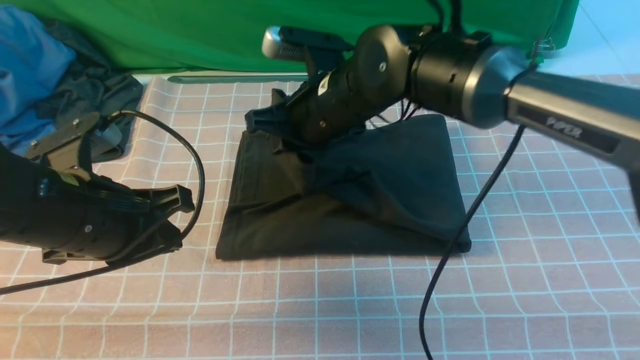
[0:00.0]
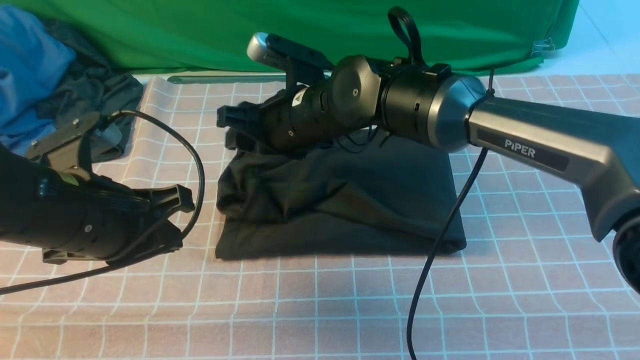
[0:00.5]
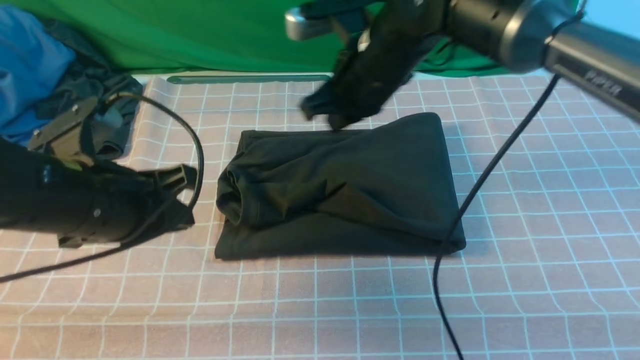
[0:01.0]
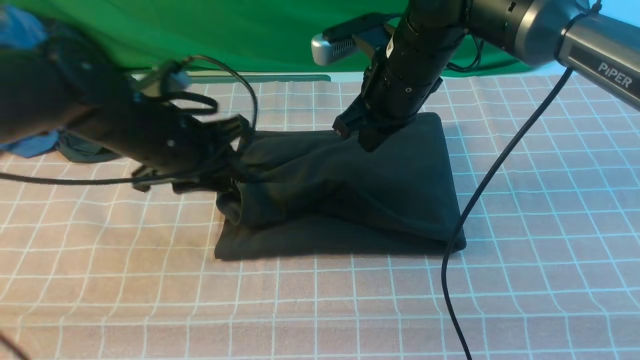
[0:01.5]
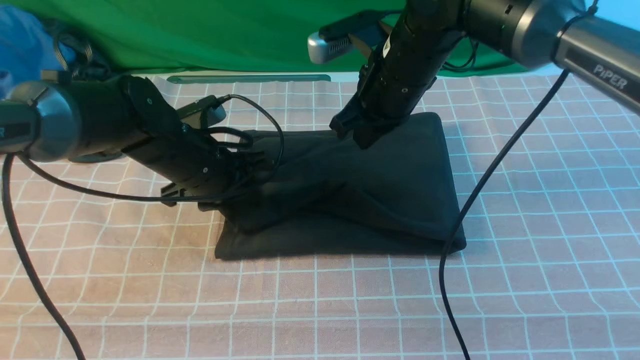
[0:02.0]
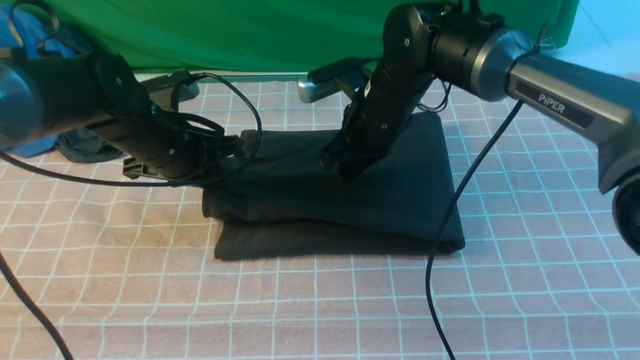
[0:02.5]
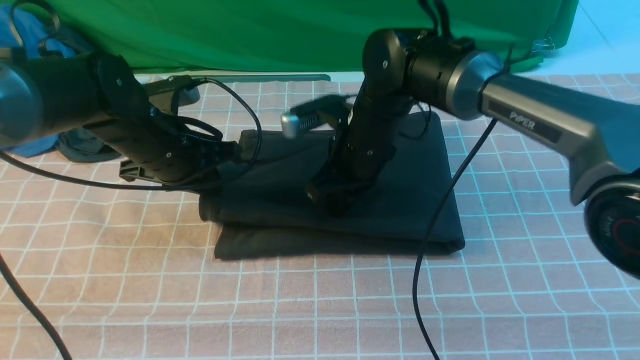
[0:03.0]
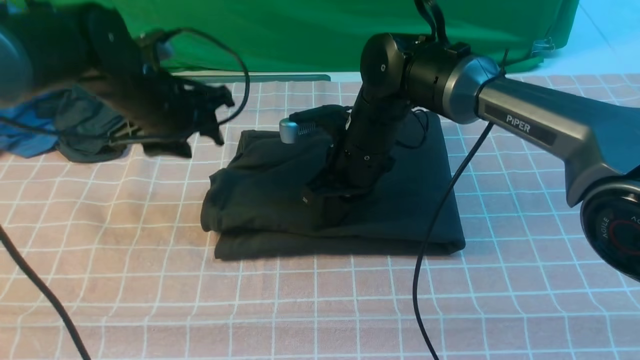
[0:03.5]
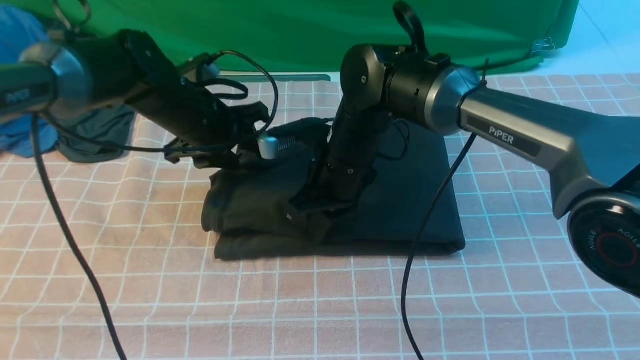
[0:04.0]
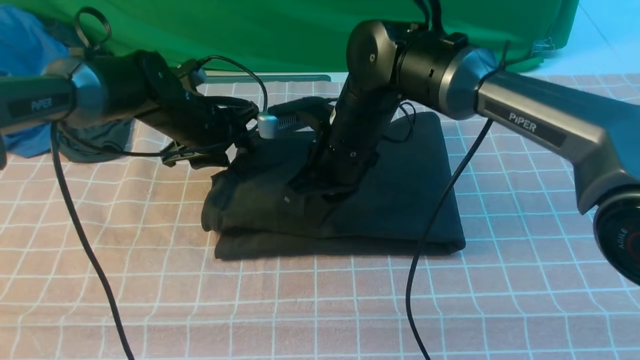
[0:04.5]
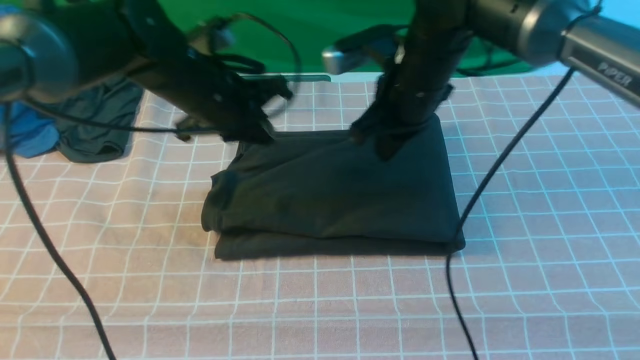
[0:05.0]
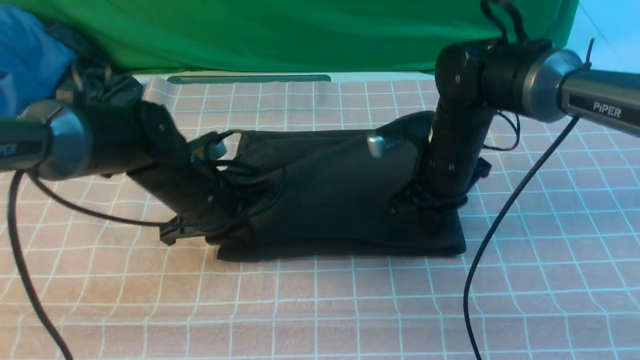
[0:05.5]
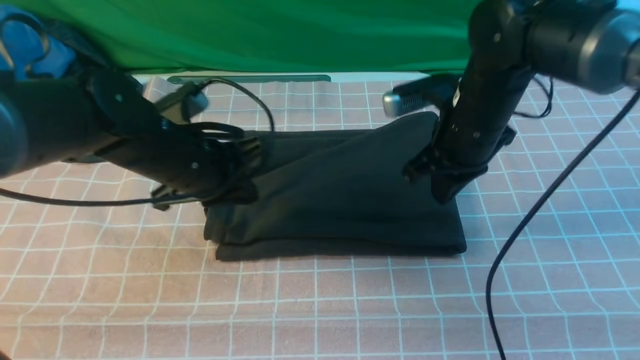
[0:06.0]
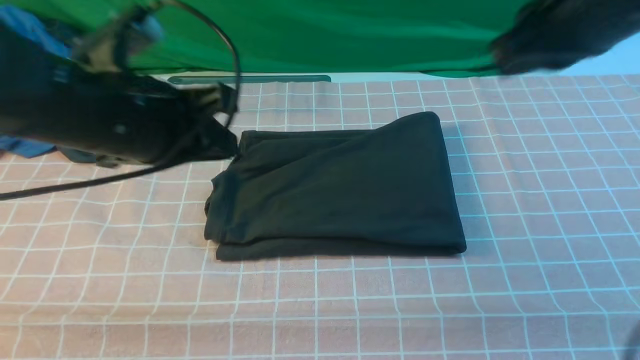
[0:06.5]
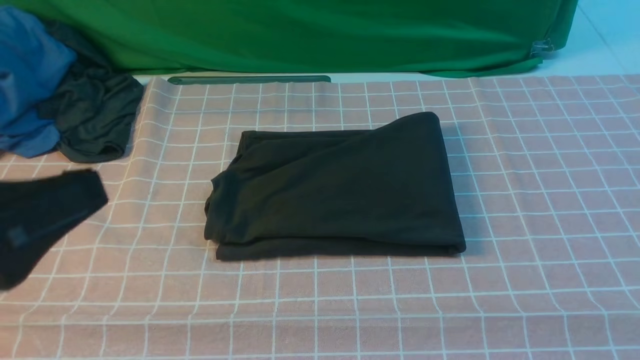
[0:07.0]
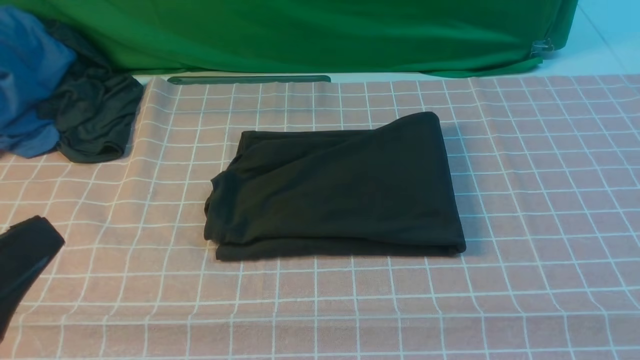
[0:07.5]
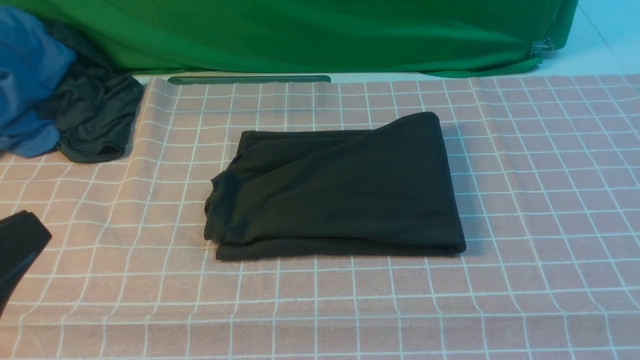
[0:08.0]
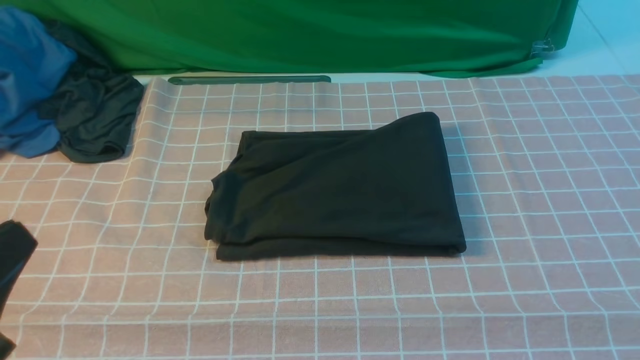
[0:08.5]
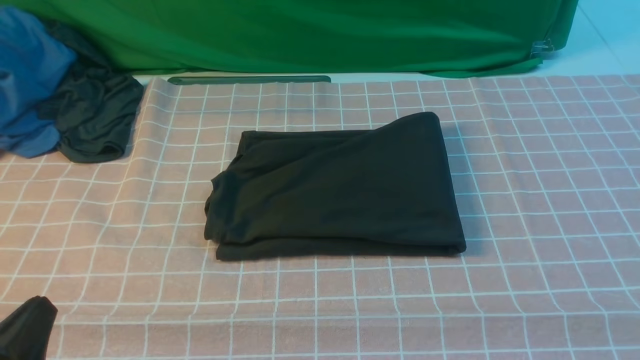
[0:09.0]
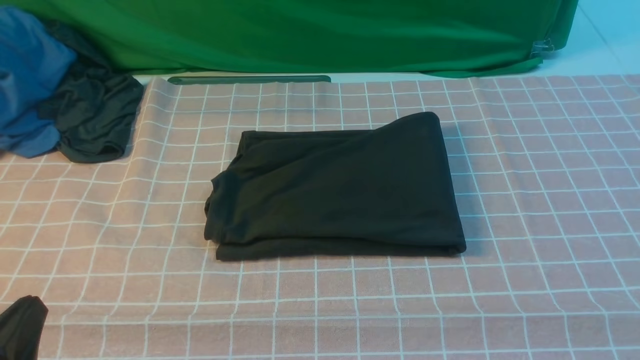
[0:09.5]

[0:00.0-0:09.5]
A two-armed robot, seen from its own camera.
0:00.0 to 0:02.0: The left gripper moves forward and downward, roughly 15 cm, and opens its fingers, while the right gripper moves to the right, approximately 5 cm, and opens, then closes again.
0:02.0 to 0:04.0: The right gripper heads downward and to the left, covering about 10 cm, while the left gripper shifts some 5 cm forward, and opens up.
0:04.0 to 0:05.5: The left gripper heads backward, covering about 10 cm, and closes its fingers. The right gripper shifts some 10 cm to the right.
0:05.5 to 0:07.5: The left gripper heads backward and upward, covering roughly 35 cm. Meanwhile the right gripper is displaced backward, upward and to the right by approximately 40 cm.
0:07.5 to 0:09.5: The left gripper heads downward, covering roughly 15 cm.

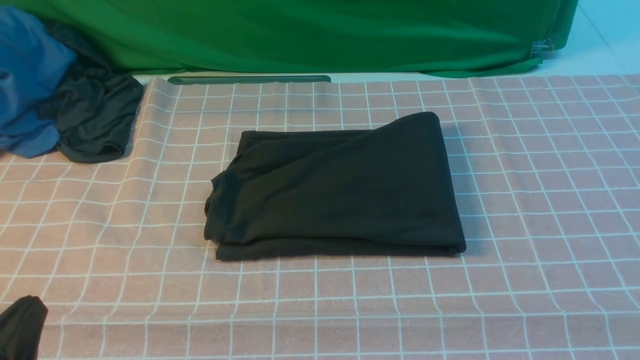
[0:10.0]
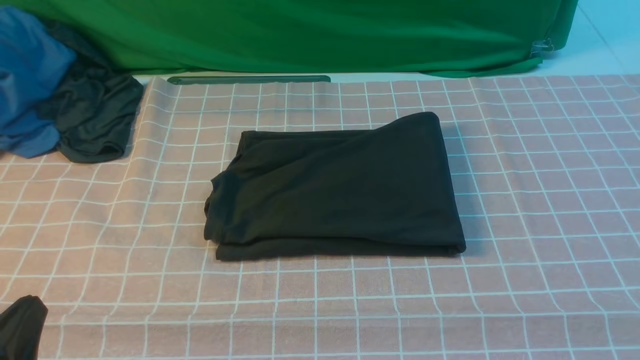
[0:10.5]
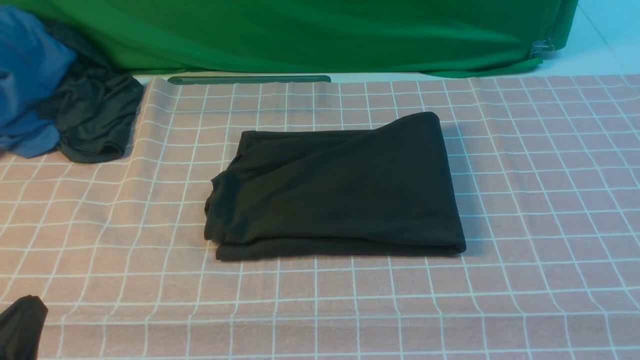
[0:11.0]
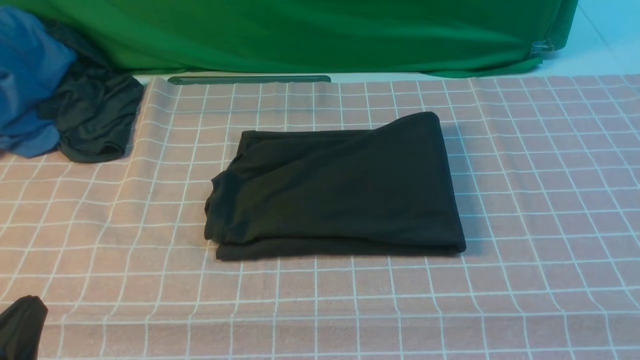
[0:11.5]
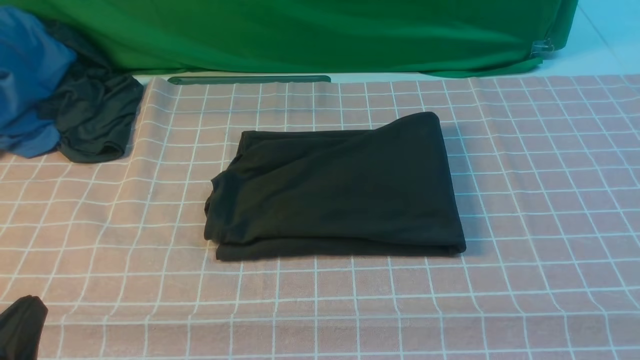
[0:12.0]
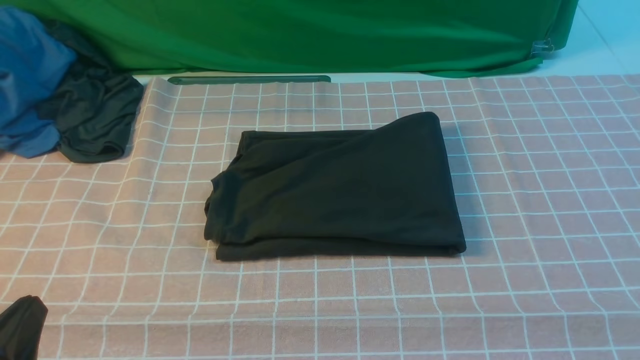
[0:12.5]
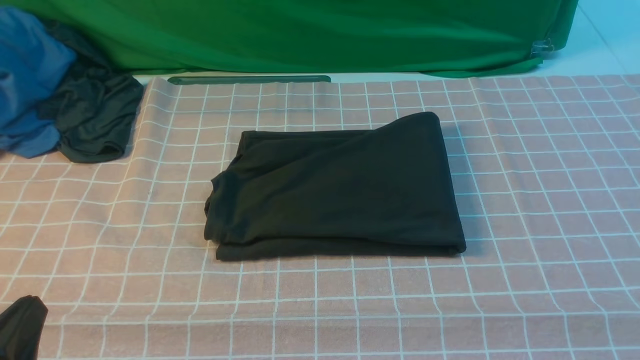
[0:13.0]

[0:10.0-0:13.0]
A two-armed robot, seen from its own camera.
0:11.5 to 0:13.0: Neither gripper changes place.

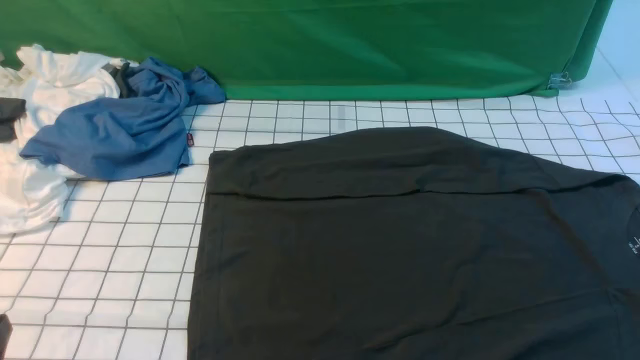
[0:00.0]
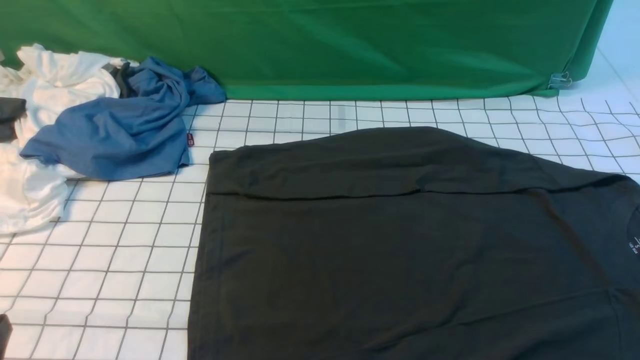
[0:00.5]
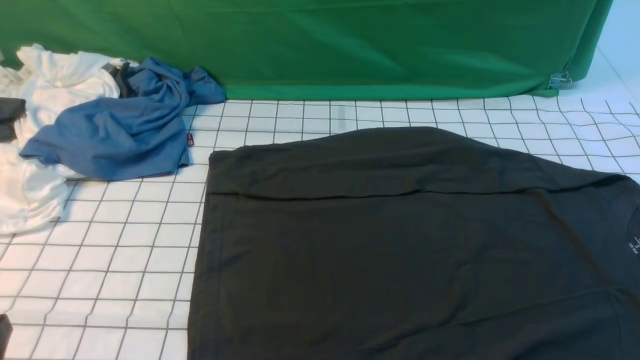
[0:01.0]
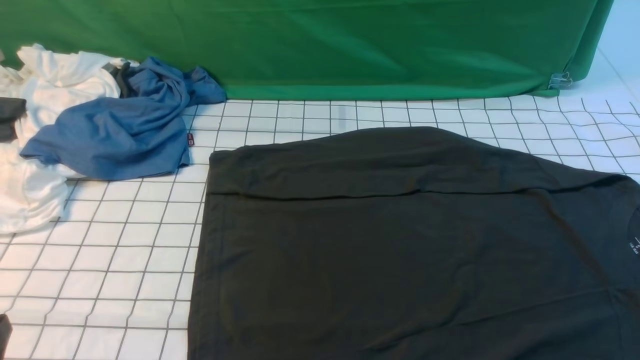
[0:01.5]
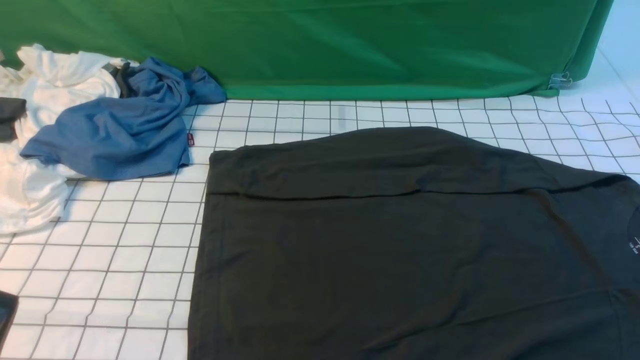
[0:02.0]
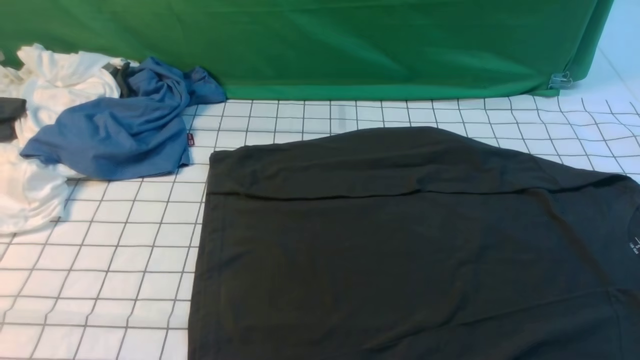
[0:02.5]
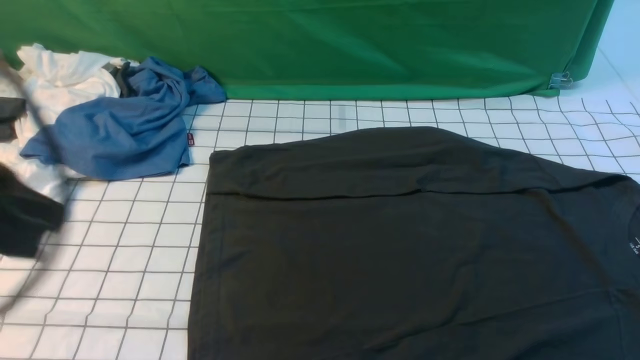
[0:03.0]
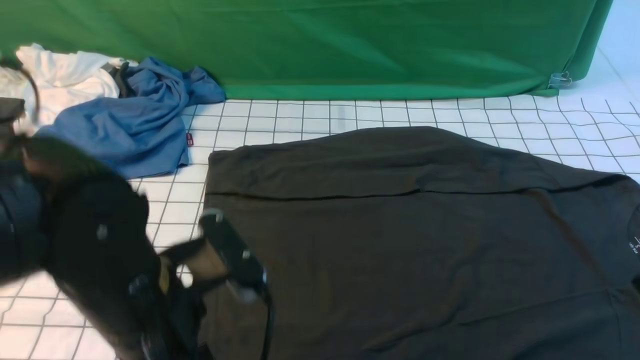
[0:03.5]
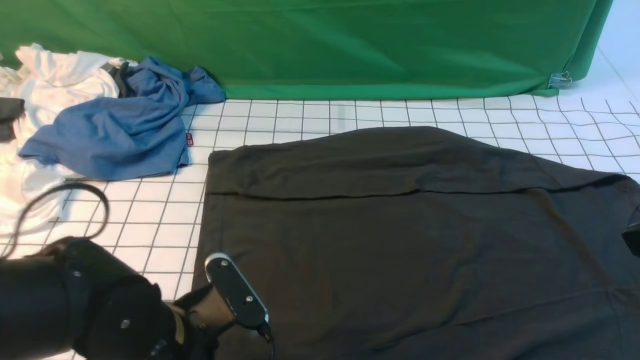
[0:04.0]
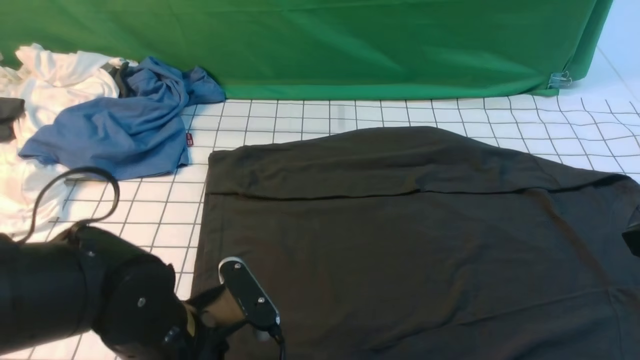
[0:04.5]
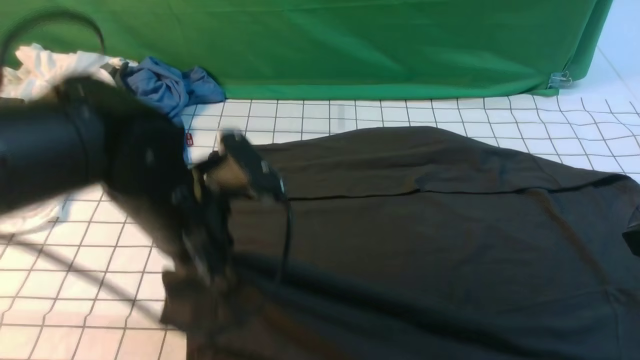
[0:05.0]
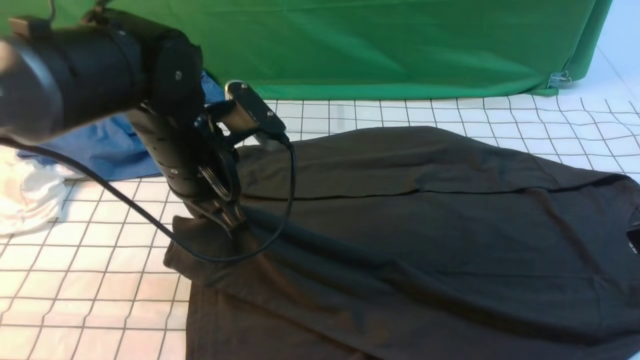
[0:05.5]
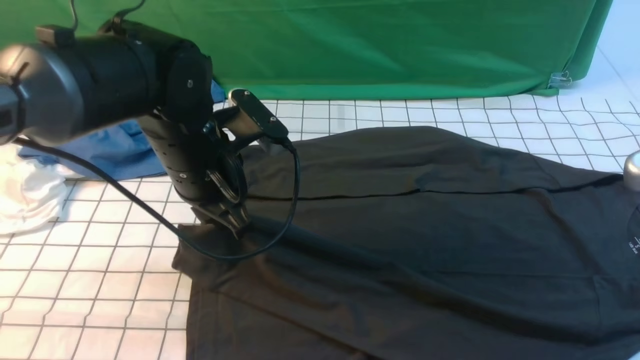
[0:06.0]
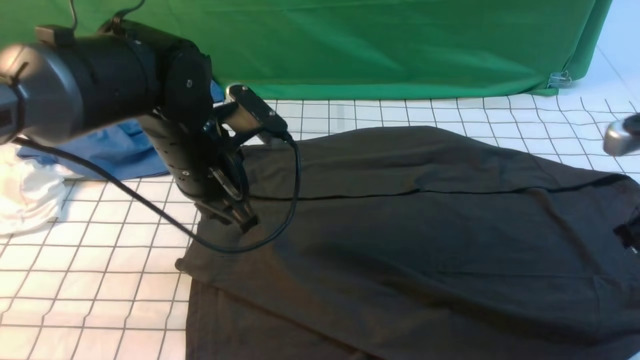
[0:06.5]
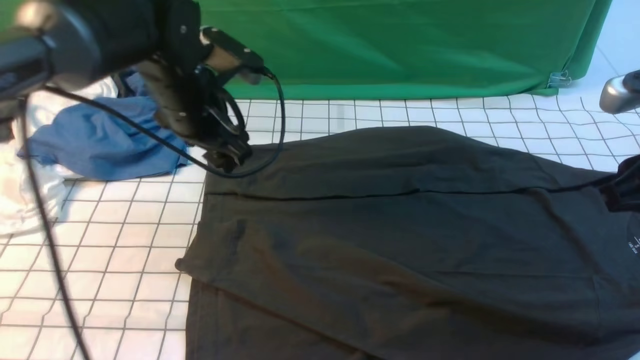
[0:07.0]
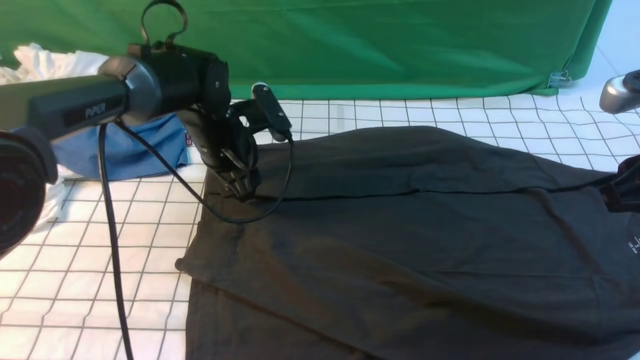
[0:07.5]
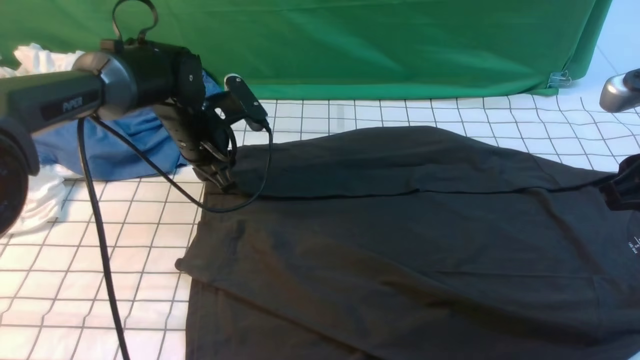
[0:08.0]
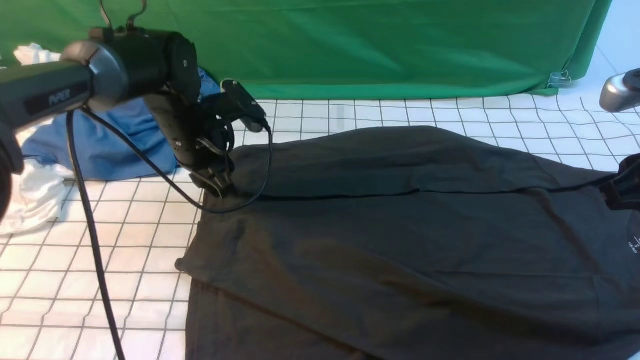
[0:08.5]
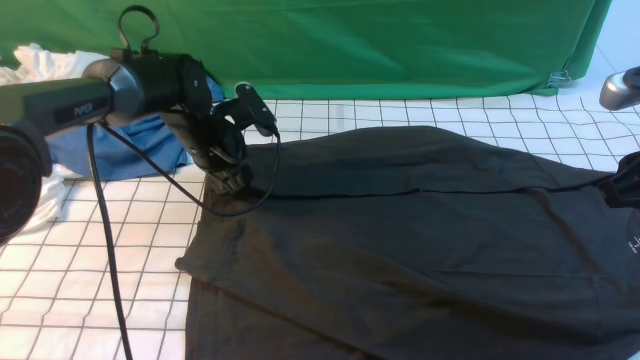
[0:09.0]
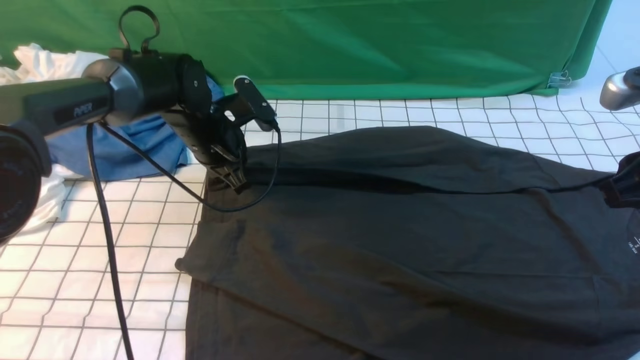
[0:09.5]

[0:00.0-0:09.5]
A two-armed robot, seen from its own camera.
Step, 0:00.0 to 0:04.5: use the left arm to clamp the cuff closest to it.
Step, 0:05.0 to 0:06.5: use the left arm to drag and place the cuff at the centered position on the left edge of the fabric.
0:02.0 to 0:04.0: The left gripper is displaced to the right and forward by about 20 cm, reaches about 15 cm upward, then returns, and opens up. The right gripper moves upward and forward, approximately 20 cm, and closes.
0:04.0 to 0:05.5: The left gripper is displaced forward and upward by about 15 cm, and closes up.
0:05.5 to 0:07.5: The right gripper travels forward by some 15 cm, and opens. The left gripper heads forward and downward, covering about 15 cm, and opens up.
0:07.5 to 0:09.5: The left gripper closes up.
